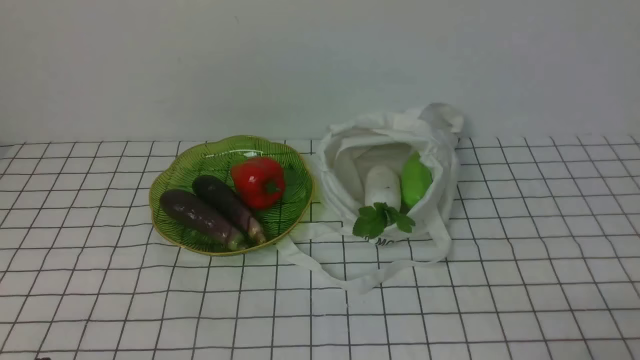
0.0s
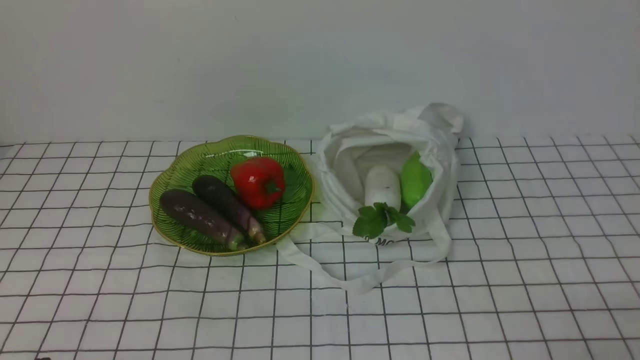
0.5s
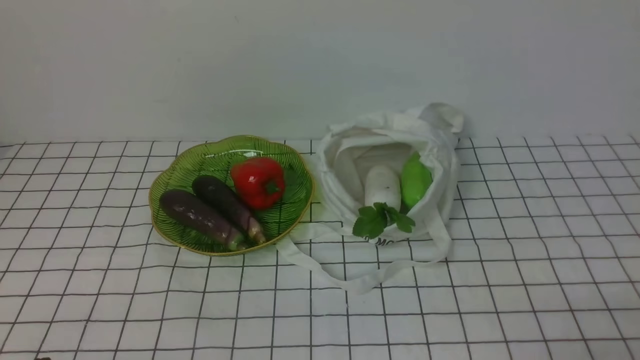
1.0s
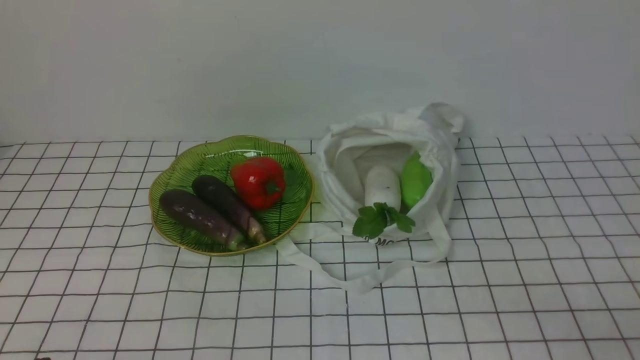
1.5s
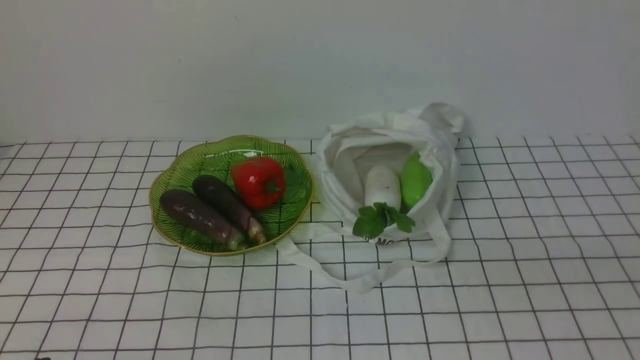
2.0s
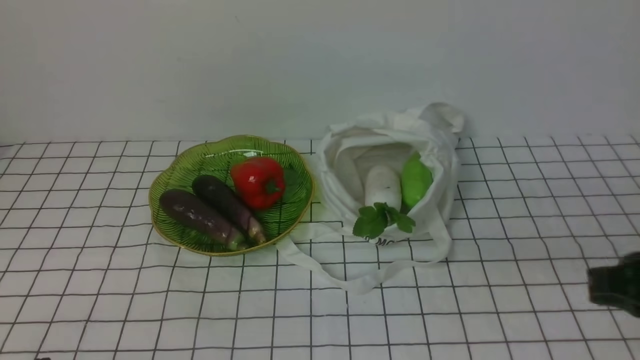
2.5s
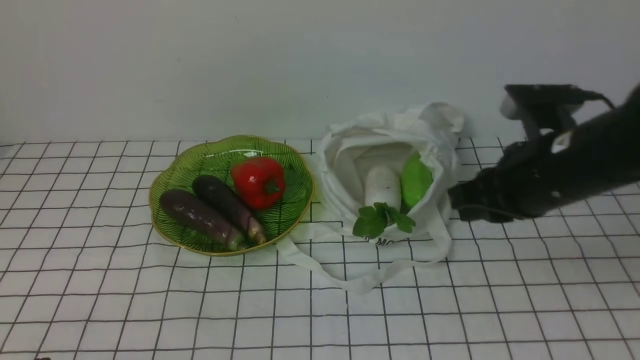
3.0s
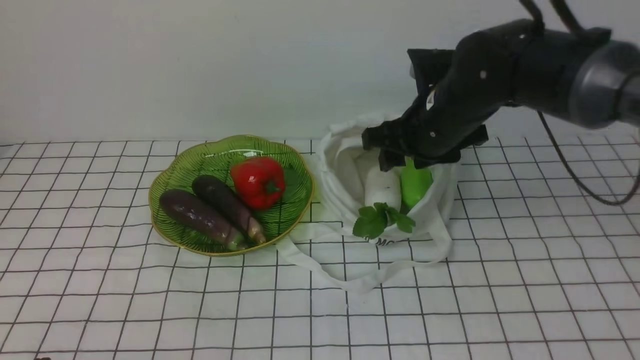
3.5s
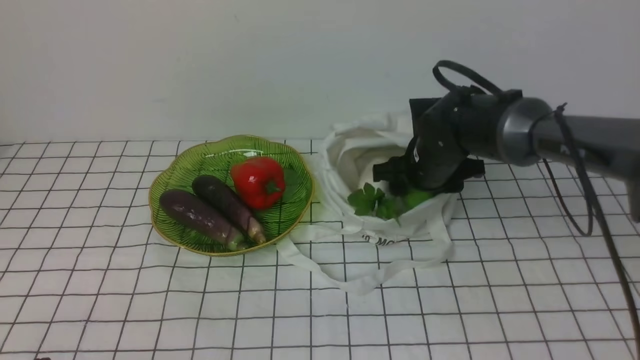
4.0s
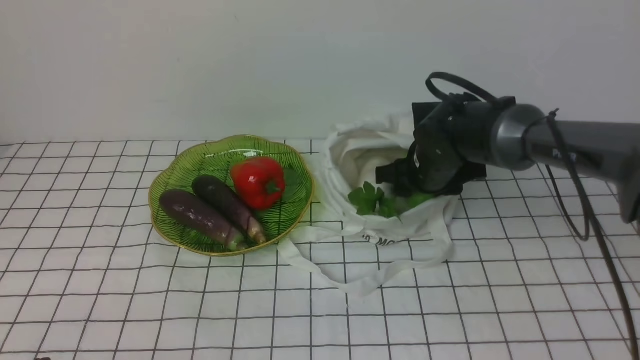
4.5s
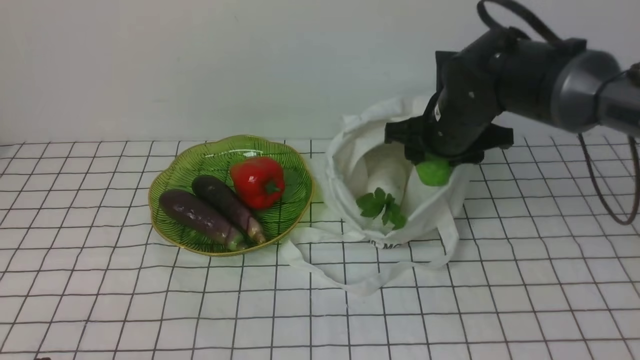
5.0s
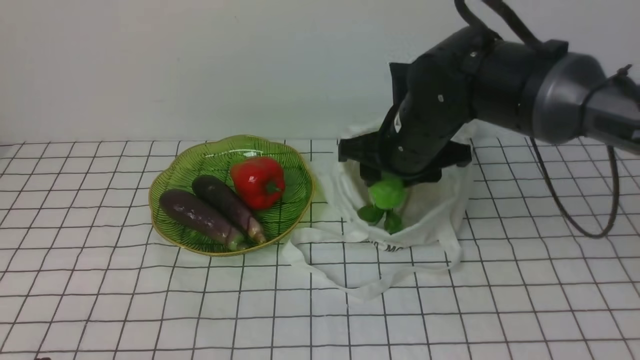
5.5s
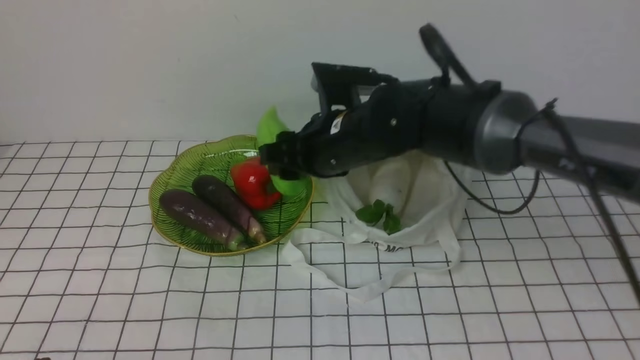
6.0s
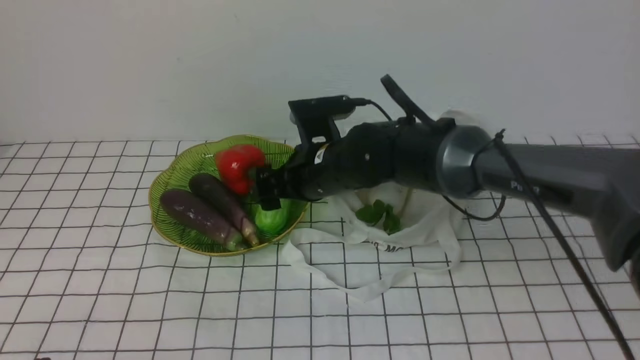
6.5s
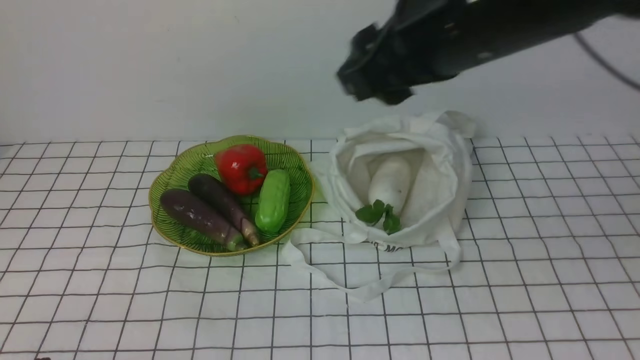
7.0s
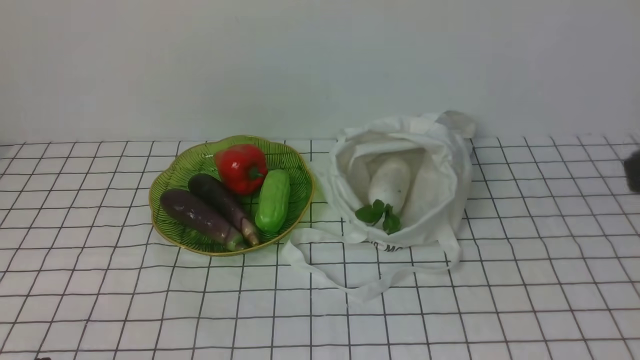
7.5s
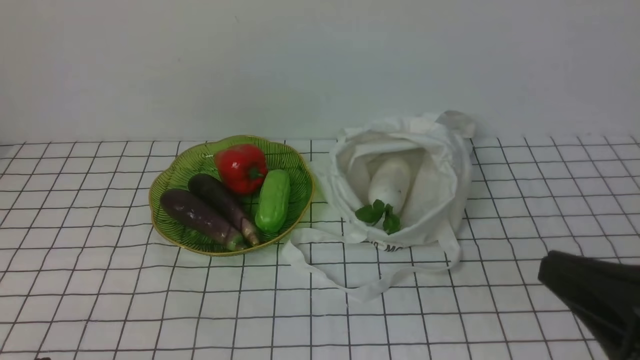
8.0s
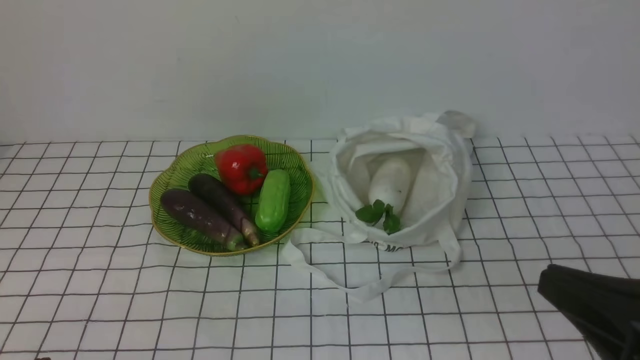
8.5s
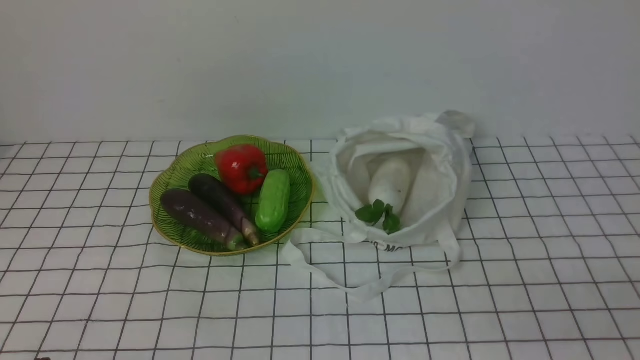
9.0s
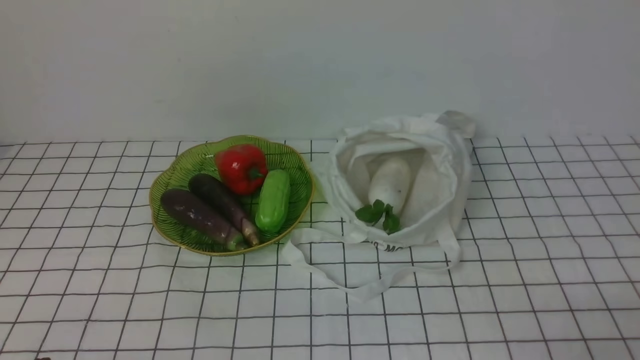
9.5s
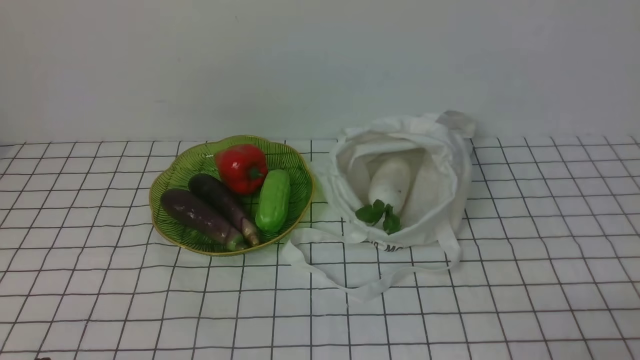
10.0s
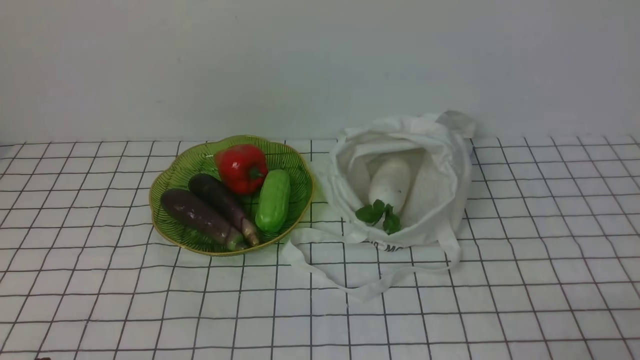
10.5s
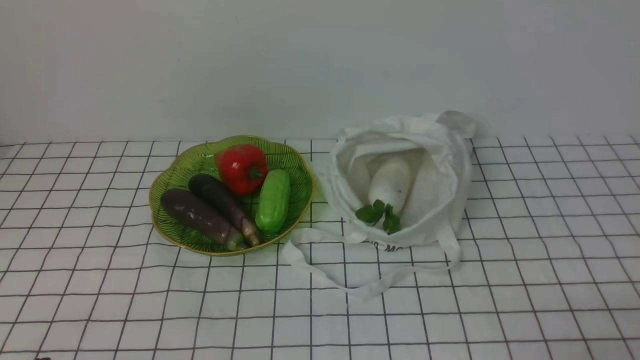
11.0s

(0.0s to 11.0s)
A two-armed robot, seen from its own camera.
Task of the whole recording: take vegetables from bag on white checkered tablecloth place on plate.
Step, 0.0s - 4.0s: Grasp the bitter melon with right gripper.
Step, 4.5s - 6.5s: Place the bitter melon on the plate with right gripper.
2.0s - 3.5s: The right gripper shifts about 35 cm forward and to the left, and opens its fingers.
3.5s - 5.5s: The right gripper travels downward and back again, about 10 cm each way.
5.5s - 7.5s: The right gripper is displaced backward, upward and to the right by approximately 35 cm, and closes its fingers.
7.5s - 9.0s: The right gripper goes approximately 20 cm downward.

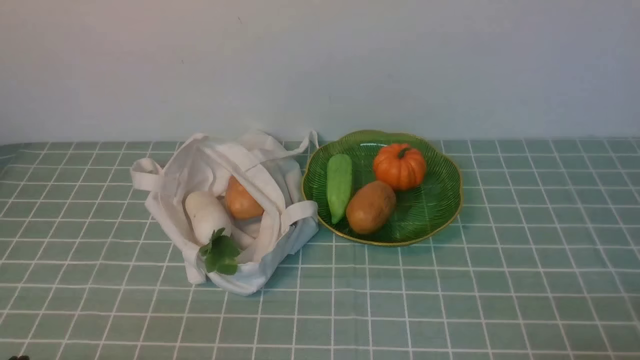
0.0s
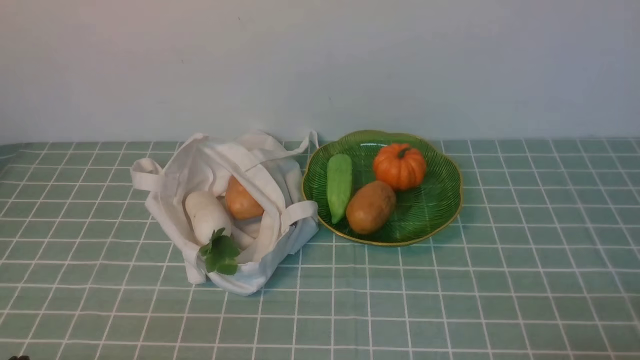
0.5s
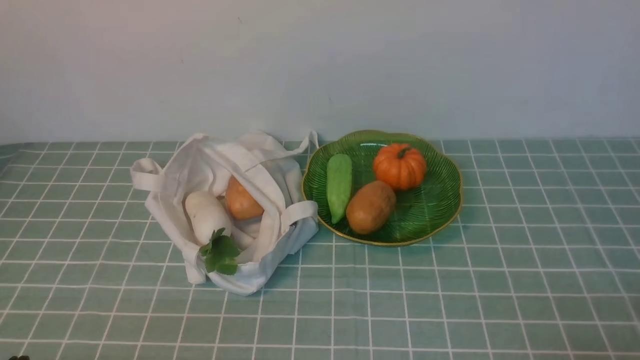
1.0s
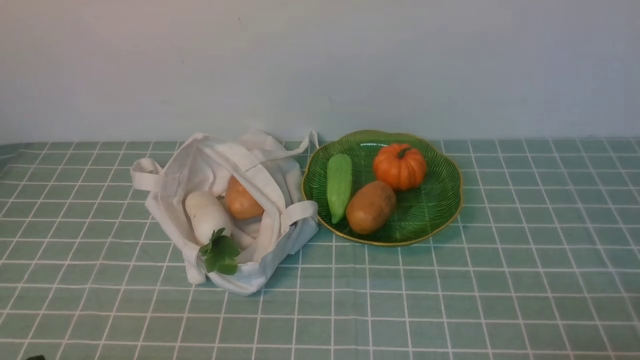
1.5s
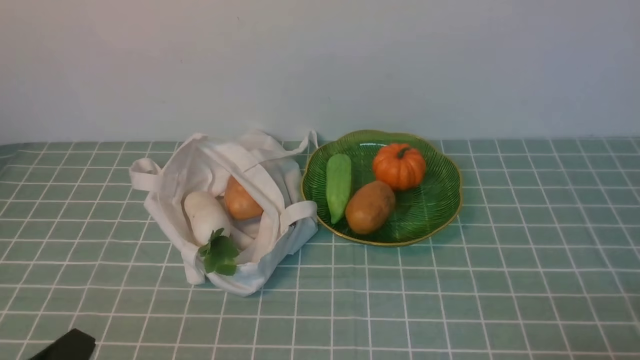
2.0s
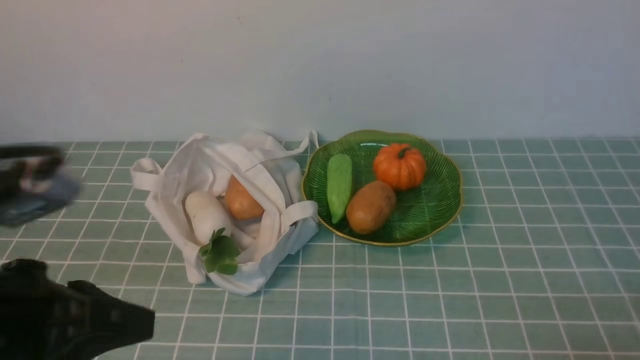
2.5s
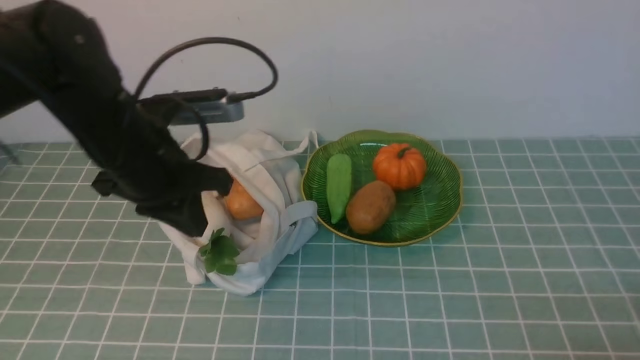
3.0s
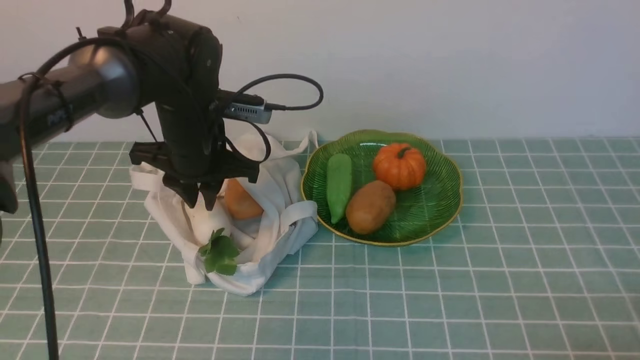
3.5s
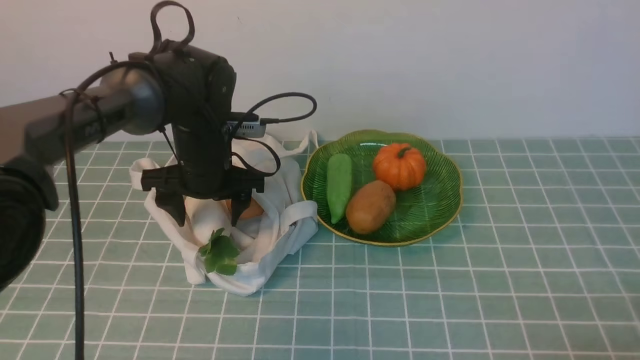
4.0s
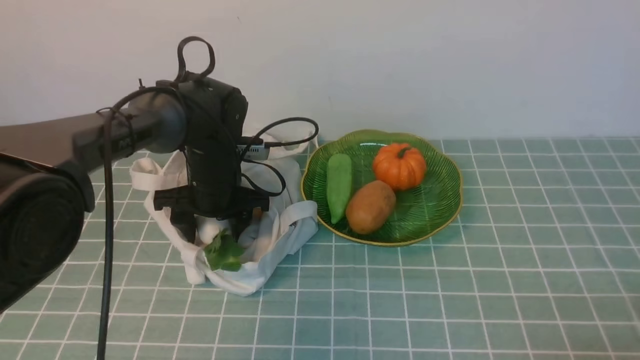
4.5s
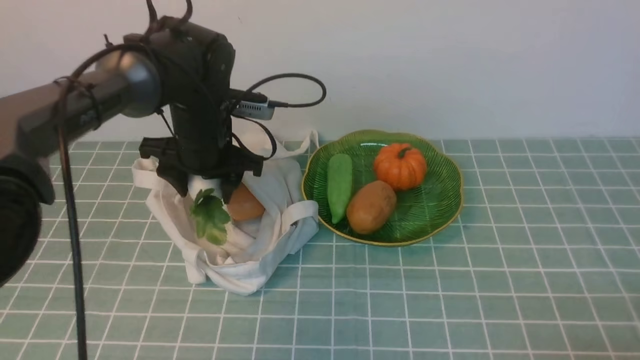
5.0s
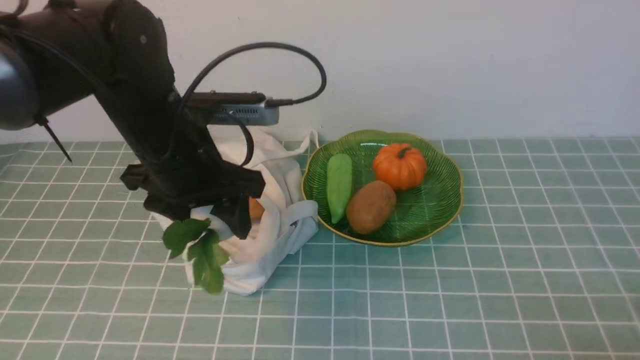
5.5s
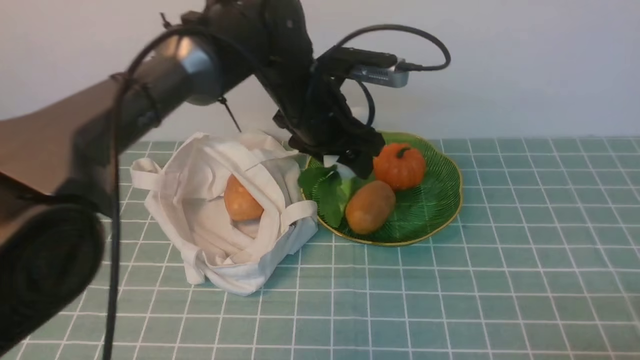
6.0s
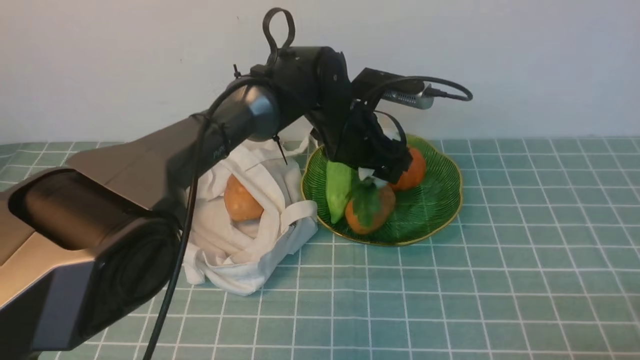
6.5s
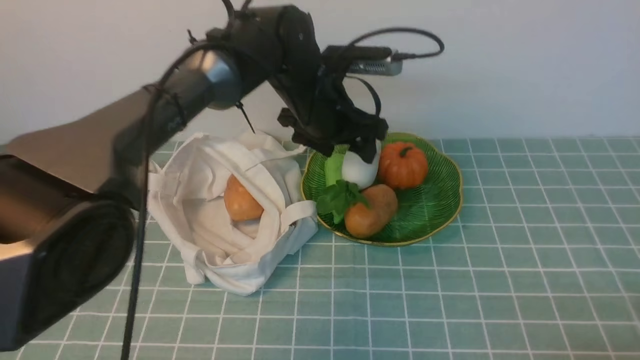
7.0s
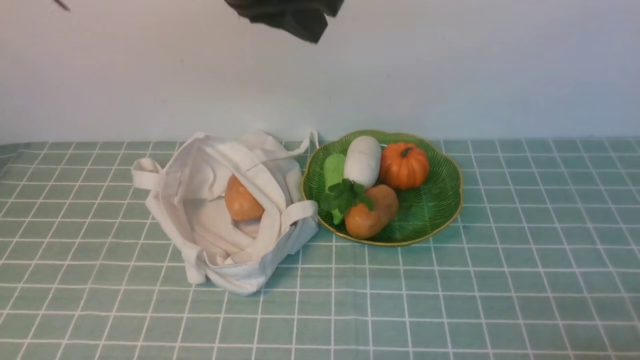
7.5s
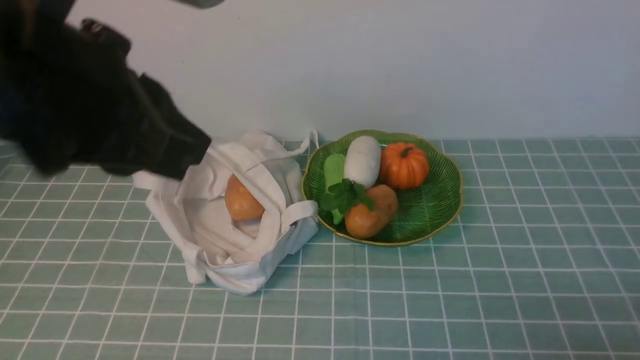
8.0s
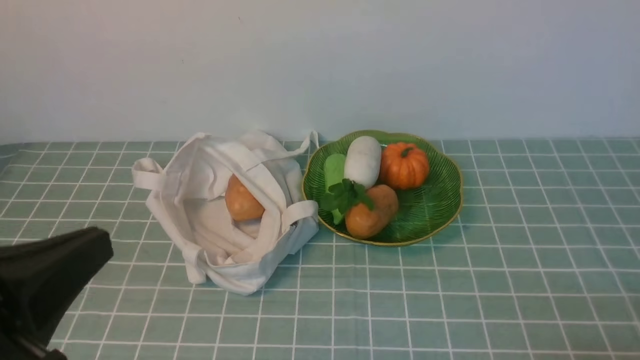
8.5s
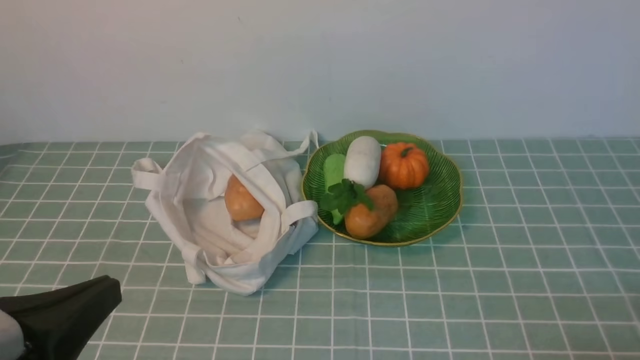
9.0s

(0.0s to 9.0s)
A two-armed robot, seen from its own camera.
Task of the whole recording: take vegetables from cloth bag on blue coffee tablecloth place on plate.
Step, 0.0s - 4.5s: Grasp the radish with left gripper.
Step, 5.0s - 7.0s: Place the radish on the plate with left gripper.
2.0s - 4.5s: The left gripper goes about 35 cm forward, and opens.
4.5s - 7.0s: The left gripper moves to the right and upward, approximately 15 cm.
7.0s - 9.0s: The left gripper shifts about 40 cm backward and to the left, and closes up.
